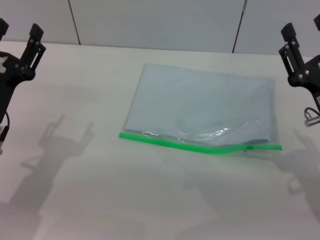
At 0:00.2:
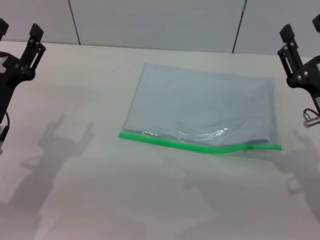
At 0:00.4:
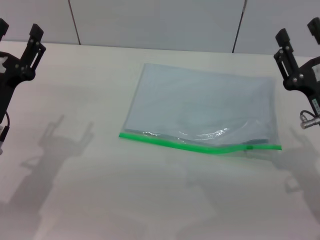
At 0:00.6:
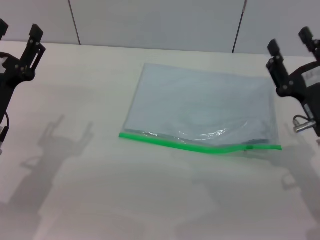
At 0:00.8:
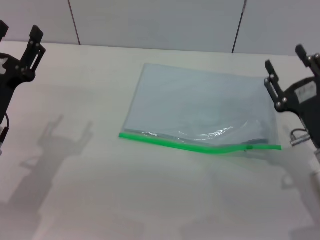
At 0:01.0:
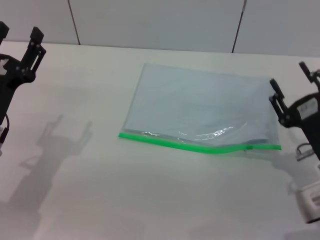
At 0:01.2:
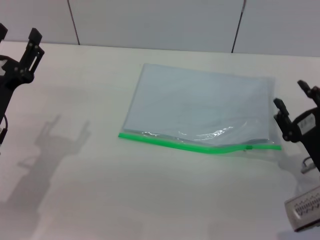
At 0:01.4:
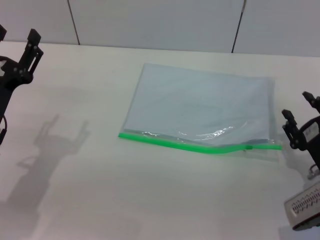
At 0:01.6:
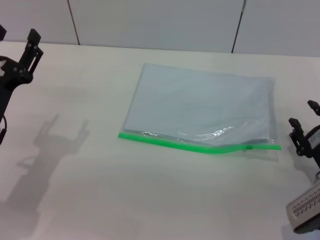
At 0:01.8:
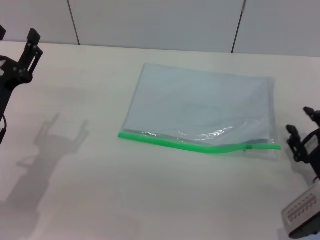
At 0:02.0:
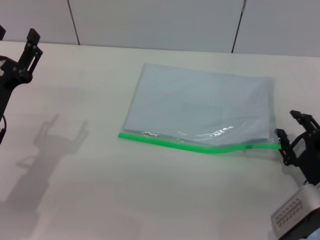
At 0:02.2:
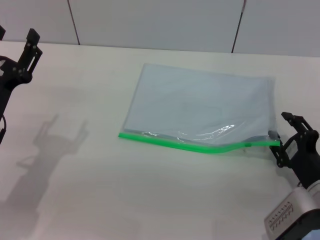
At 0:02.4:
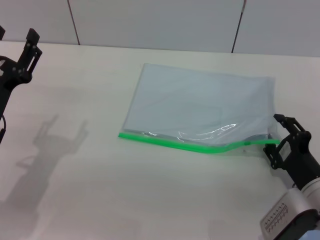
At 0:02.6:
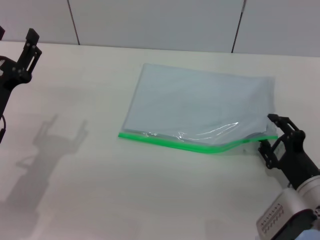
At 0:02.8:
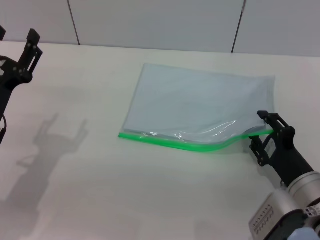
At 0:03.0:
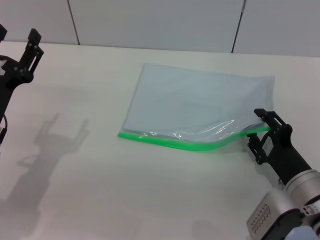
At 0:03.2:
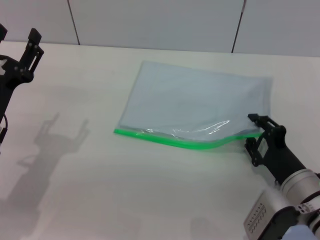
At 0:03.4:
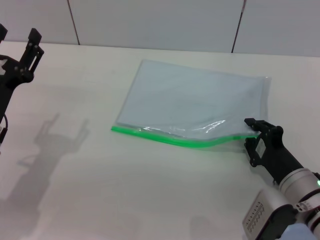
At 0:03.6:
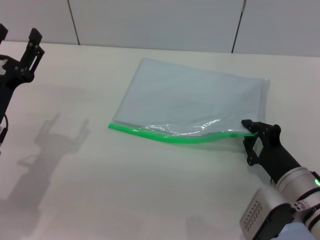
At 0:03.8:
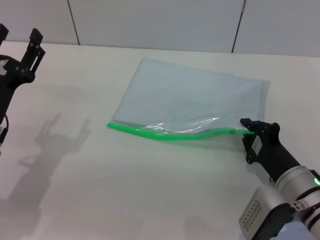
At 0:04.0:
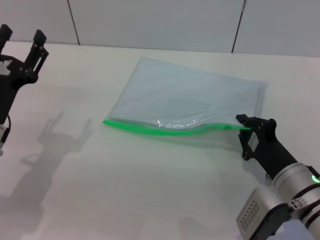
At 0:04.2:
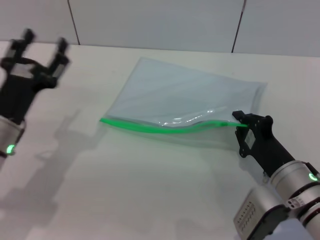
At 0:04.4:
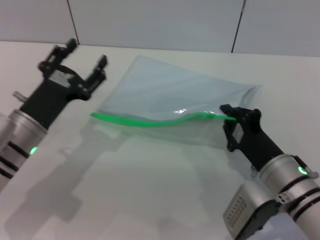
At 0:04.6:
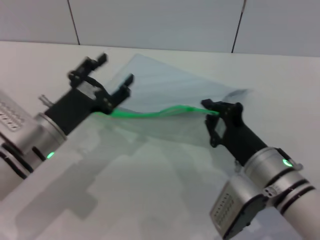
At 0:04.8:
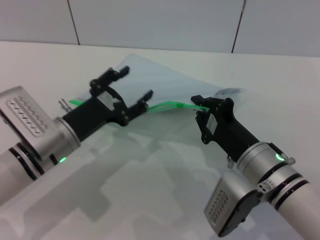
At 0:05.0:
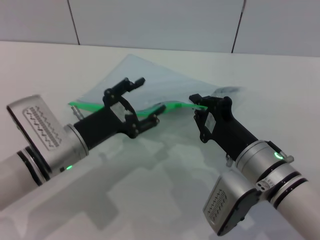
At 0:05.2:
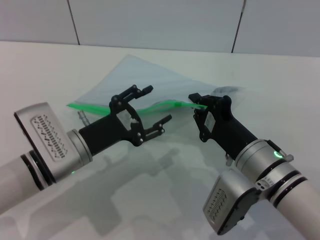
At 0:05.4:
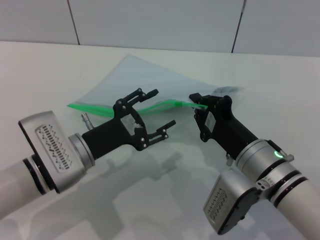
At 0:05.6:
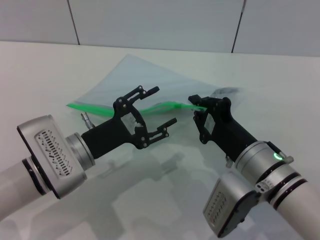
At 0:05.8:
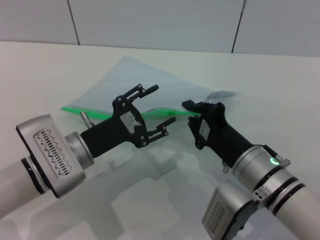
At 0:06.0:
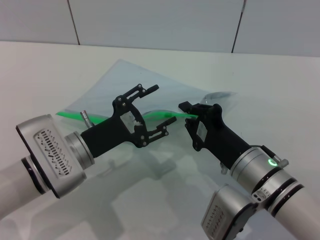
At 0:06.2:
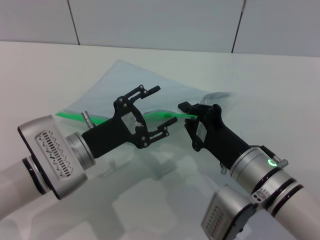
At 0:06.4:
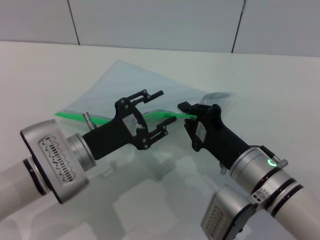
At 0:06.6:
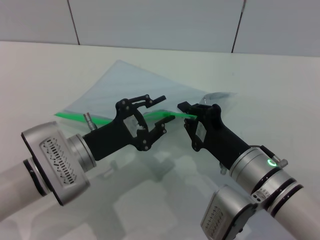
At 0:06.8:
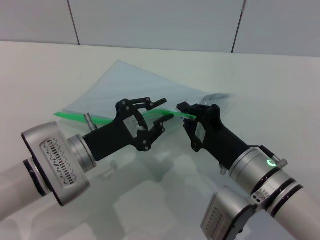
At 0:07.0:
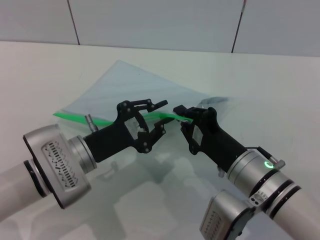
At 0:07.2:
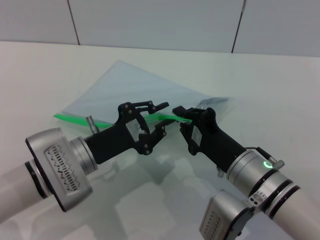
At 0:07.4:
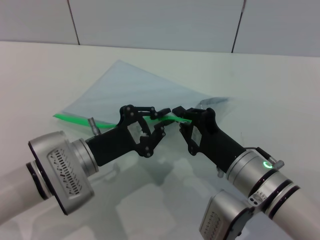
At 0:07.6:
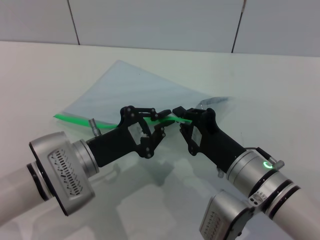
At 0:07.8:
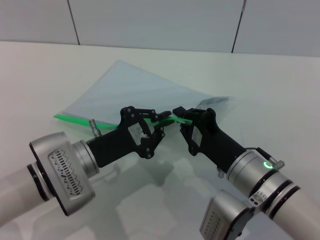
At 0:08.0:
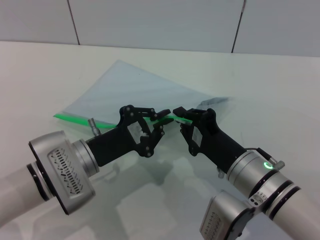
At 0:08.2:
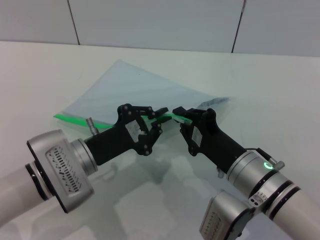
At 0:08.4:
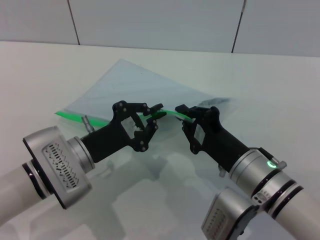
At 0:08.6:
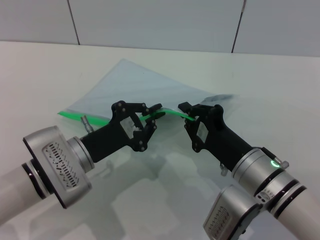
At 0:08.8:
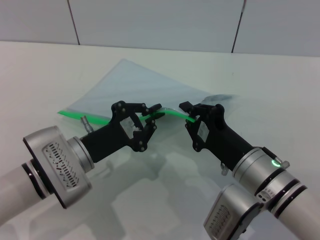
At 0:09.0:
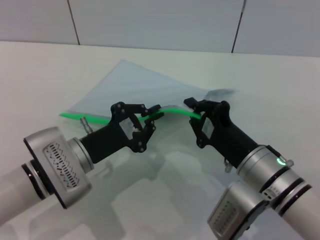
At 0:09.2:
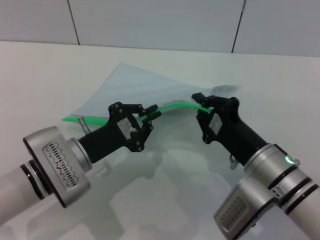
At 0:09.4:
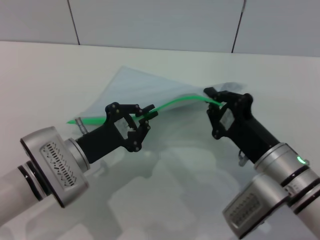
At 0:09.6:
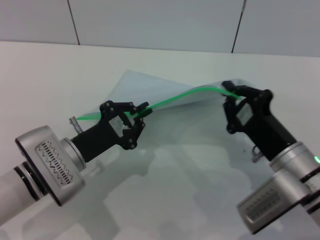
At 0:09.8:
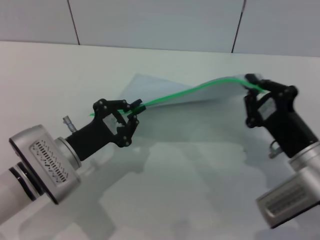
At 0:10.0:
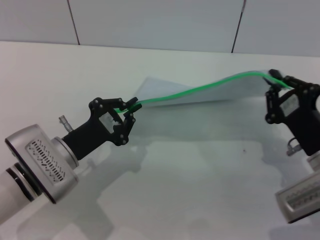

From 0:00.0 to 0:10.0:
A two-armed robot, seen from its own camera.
Step, from 0:00.0 to 0:04.6: Pick up the transparent plastic bag with the right gripper.
From 0:00.0 to 0:01.4: The right gripper heads downward, covering approximately 5 cm.
From 0:01.4 to 0:02.8: There are only small adjustments of the grippers.
From 0:02.8 to 0:04.2: The right gripper closes up.
From 0:04.2 to 0:05.8: The right gripper moves to the left, roughly 5 cm; the left gripper goes roughly 10 cm to the right.
From 0:05.8 to 0:07.2: The left gripper closes.
From 0:07.2 to 0:08.6: The two grippers keep their place.
From 0:08.6 to 0:10.0: The right gripper moves to the right, approximately 10 cm.

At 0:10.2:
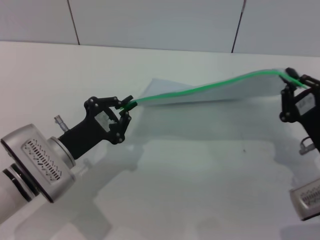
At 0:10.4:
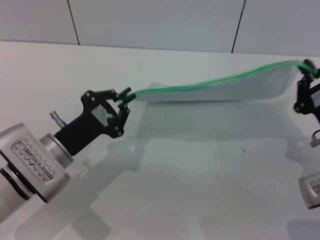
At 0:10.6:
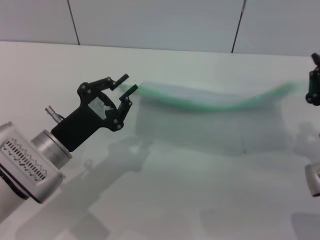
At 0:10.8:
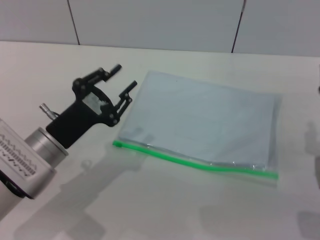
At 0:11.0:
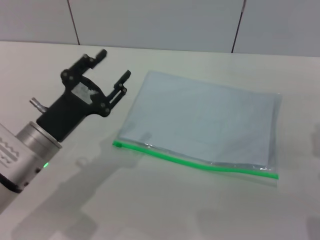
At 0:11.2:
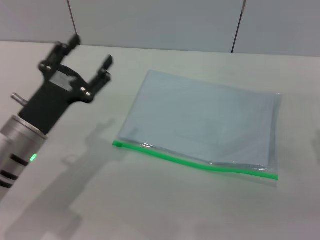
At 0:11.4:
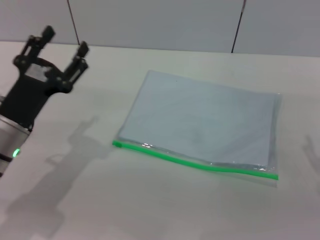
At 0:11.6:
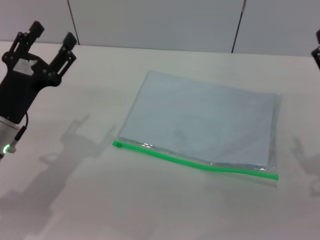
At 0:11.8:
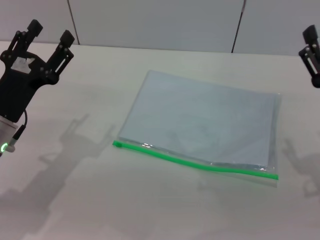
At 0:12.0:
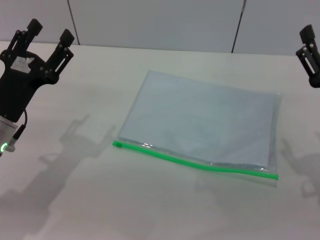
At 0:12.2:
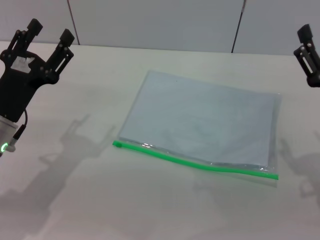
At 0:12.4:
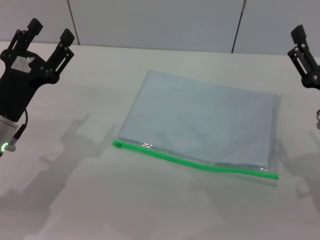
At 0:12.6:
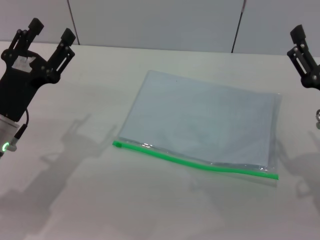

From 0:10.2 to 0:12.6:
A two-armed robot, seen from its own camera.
Step, from 0:10.8 to 0:11.4: Place the transparent plastic bag.
From 0:10.2 to 0:11.4: The left gripper moves approximately 5 cm, and opens. Meanwhile the right gripper opens up.
From 0:11.4 to 0:12.6: The grippers make only small movements.

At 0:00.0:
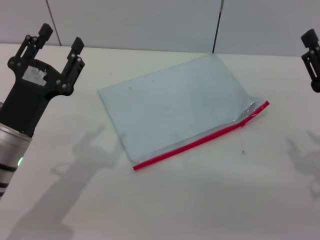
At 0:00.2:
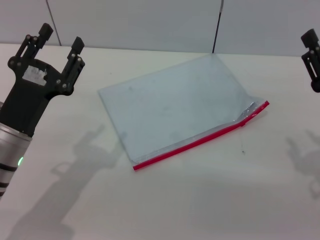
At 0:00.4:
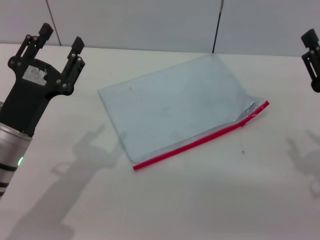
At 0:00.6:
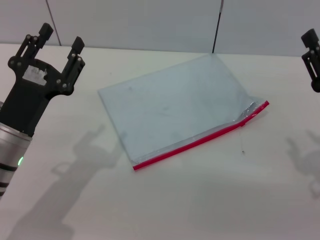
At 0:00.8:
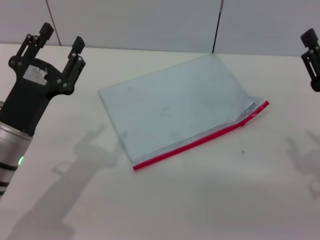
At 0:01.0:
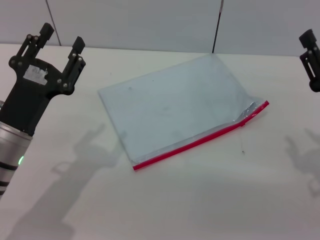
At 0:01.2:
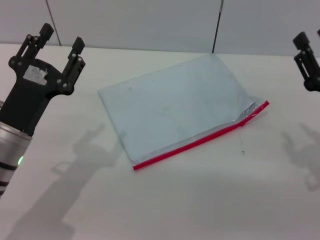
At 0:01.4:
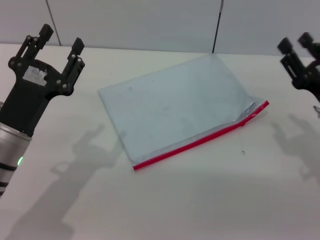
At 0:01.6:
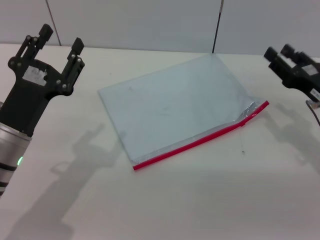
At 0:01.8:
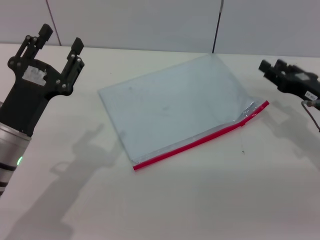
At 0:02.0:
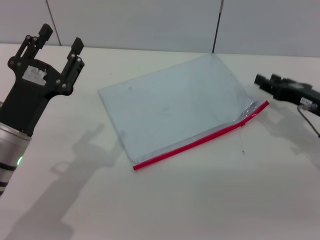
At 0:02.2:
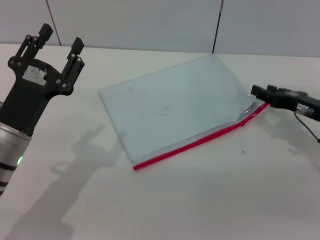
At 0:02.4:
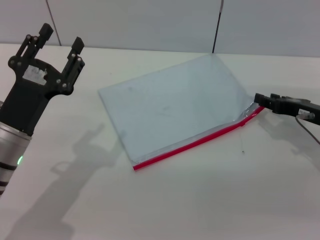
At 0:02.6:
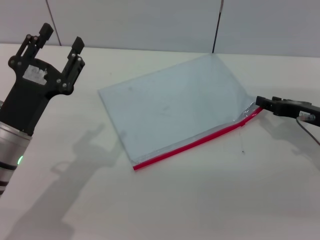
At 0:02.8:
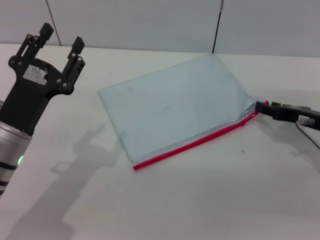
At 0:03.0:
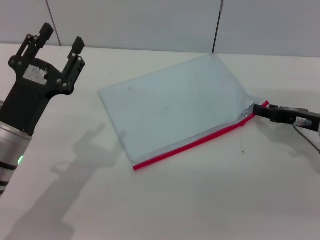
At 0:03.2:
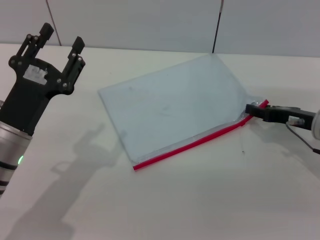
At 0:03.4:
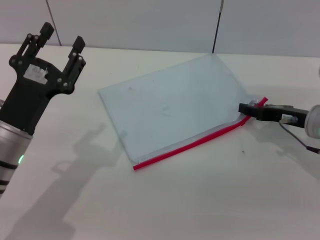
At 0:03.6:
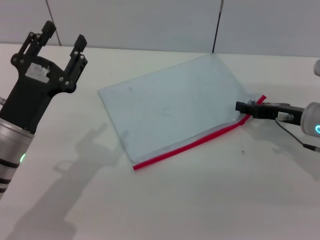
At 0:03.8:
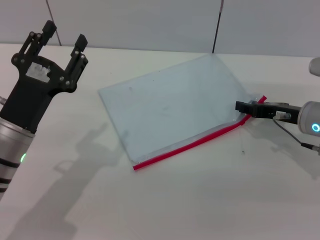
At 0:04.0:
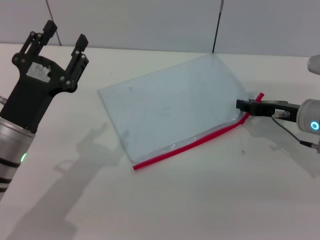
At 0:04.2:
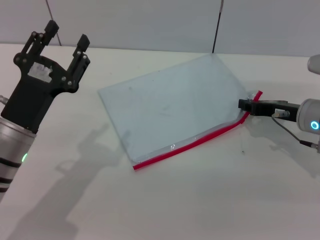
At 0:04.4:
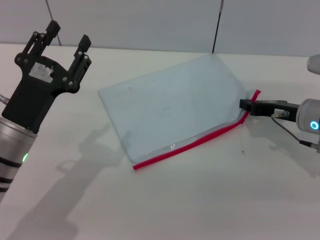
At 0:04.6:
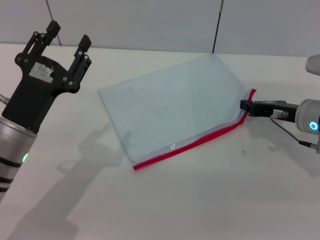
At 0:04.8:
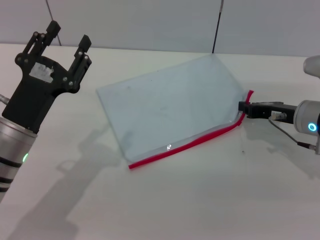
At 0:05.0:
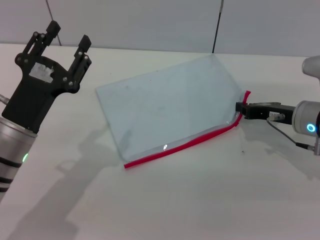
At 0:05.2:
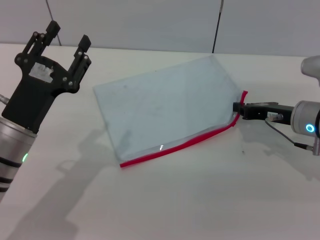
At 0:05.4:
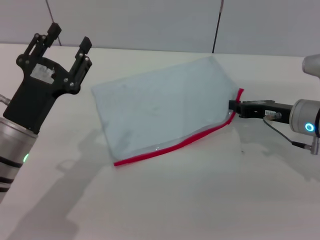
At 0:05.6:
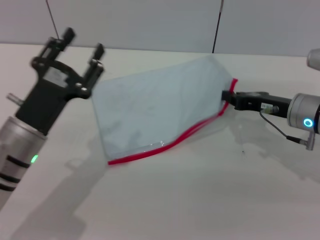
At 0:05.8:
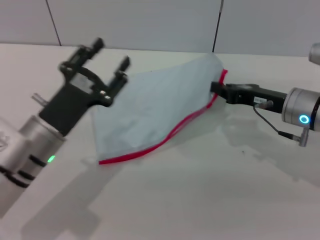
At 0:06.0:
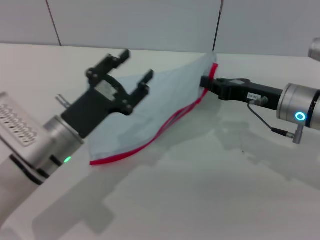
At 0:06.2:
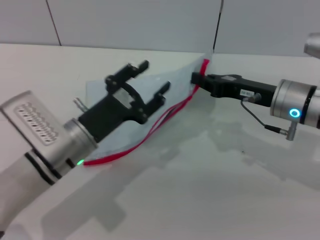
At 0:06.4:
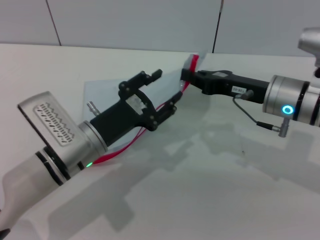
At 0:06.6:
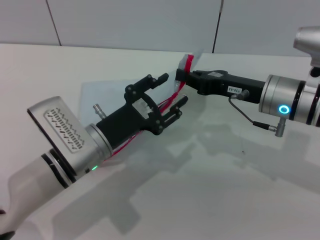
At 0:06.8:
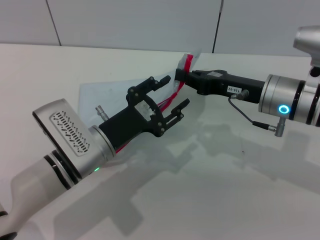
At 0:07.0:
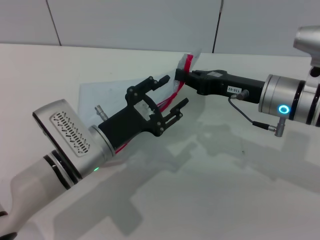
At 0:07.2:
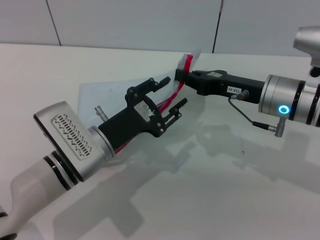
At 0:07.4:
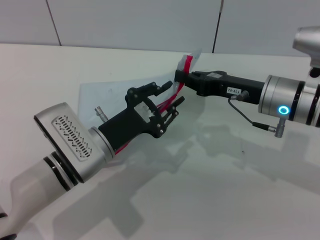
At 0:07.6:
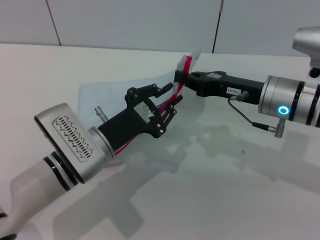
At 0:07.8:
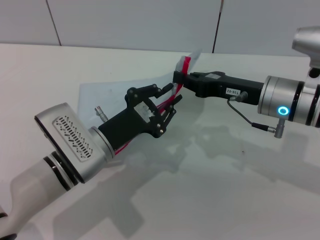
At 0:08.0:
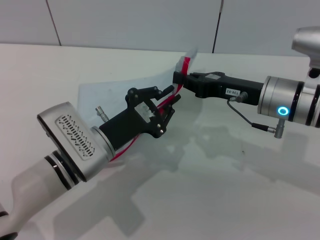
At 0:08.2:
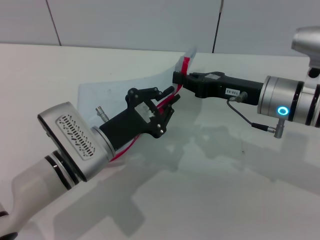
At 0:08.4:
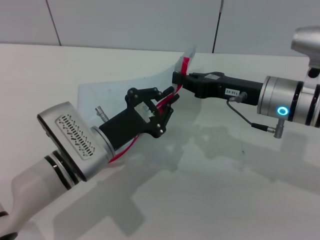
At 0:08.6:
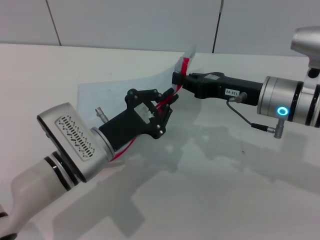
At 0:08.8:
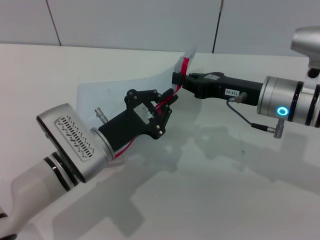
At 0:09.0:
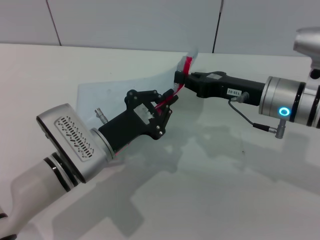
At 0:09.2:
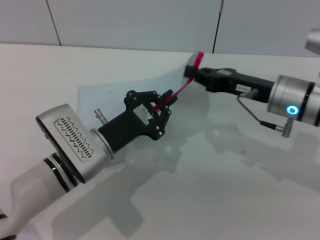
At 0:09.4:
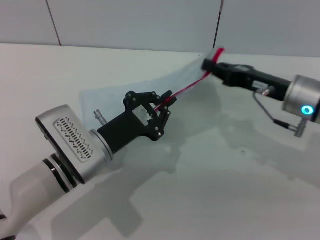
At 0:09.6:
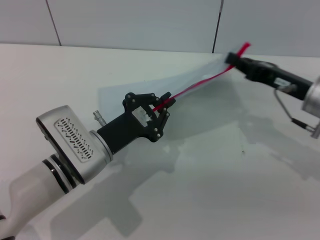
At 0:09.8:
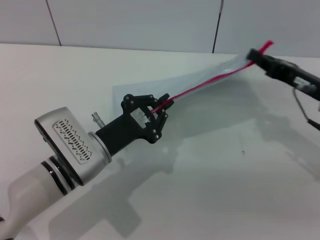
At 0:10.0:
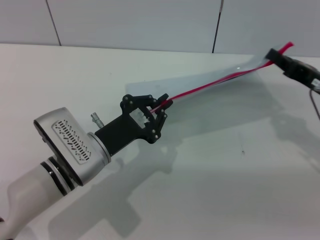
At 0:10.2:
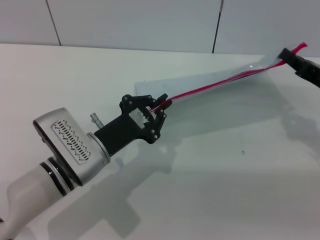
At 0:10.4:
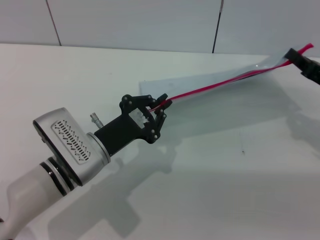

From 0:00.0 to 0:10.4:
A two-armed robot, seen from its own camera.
Step, from 0:00.0 to 0:06.0: Pick up the transparent plastic bag with the right gripper.
From 0:00.0 to 0:01.4: The grippers move only a little.
From 0:01.4 to 0:03.0: The right gripper heads forward, covering roughly 5 cm.
From 0:03.0 to 0:04.4: The right gripper closes.
From 0:04.4 to 0:06.0: The right gripper shifts by about 5 cm, and closes its fingers.
From 0:07.4 to 0:09.0: The left gripper closes up.
From 0:09.0 to 0:10.4: The right gripper is displaced to the right by some 15 cm.
